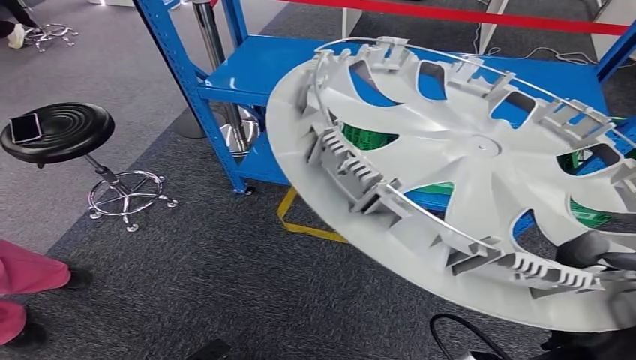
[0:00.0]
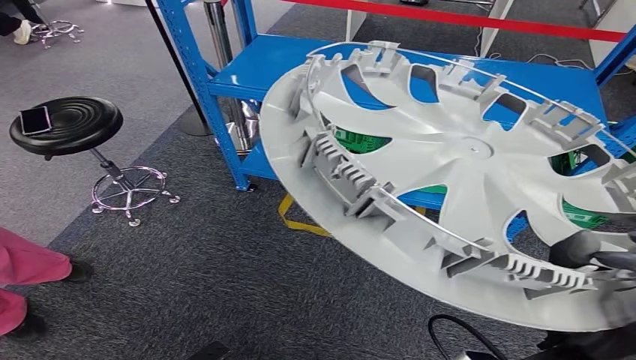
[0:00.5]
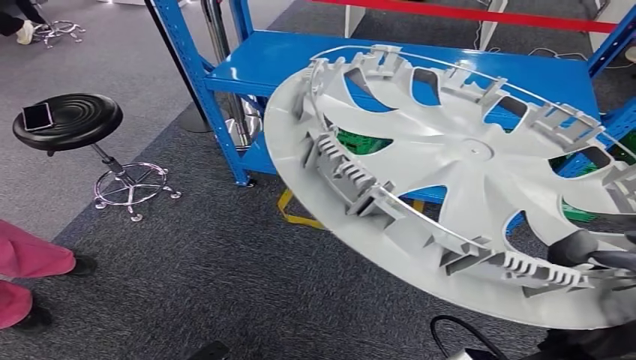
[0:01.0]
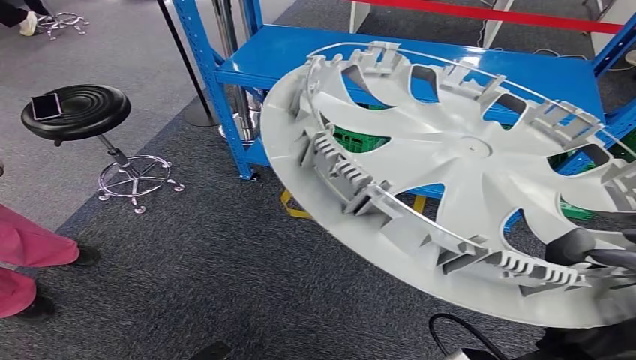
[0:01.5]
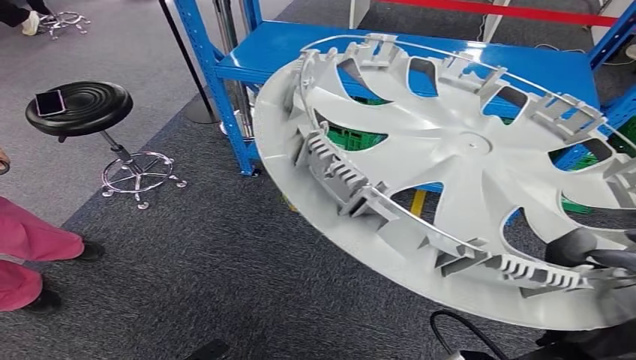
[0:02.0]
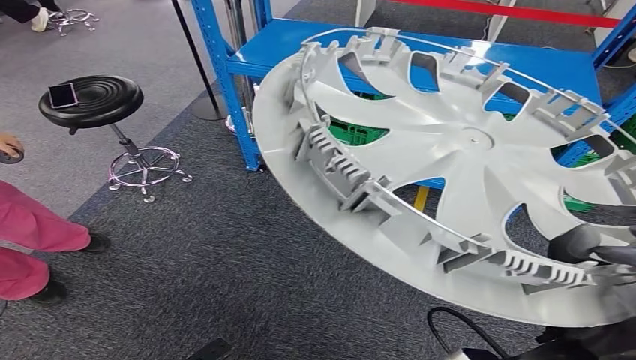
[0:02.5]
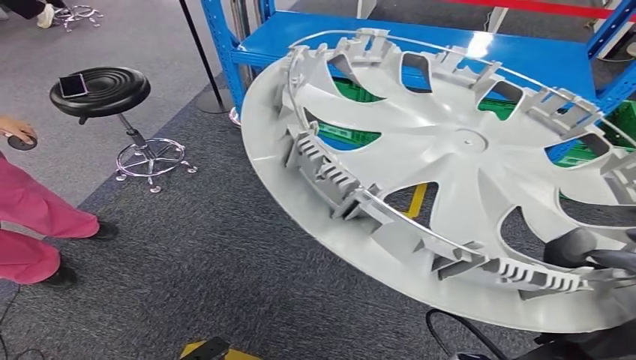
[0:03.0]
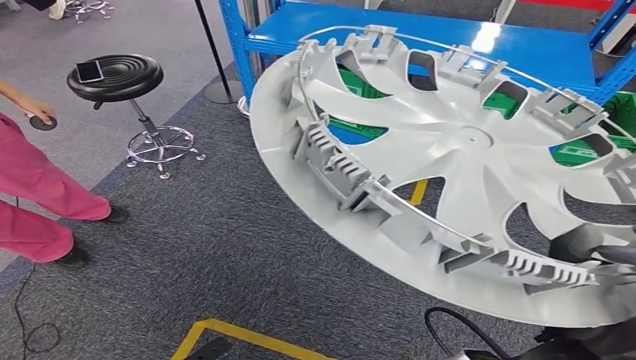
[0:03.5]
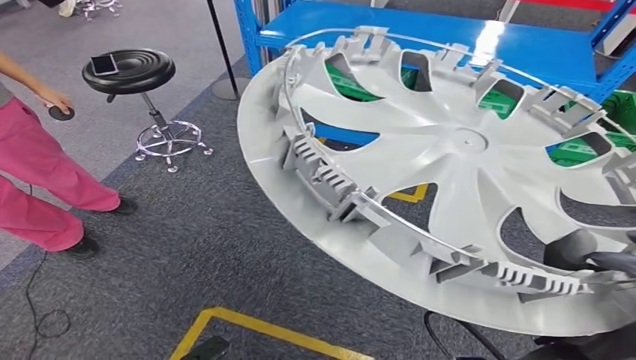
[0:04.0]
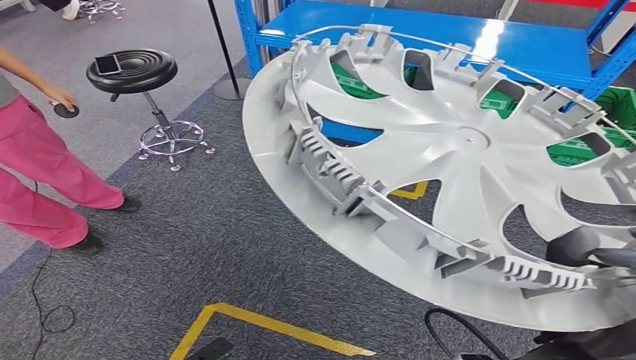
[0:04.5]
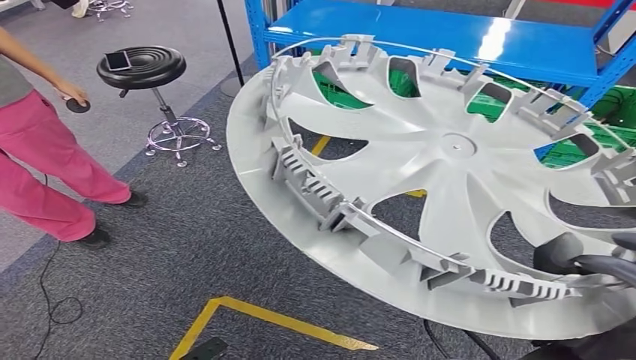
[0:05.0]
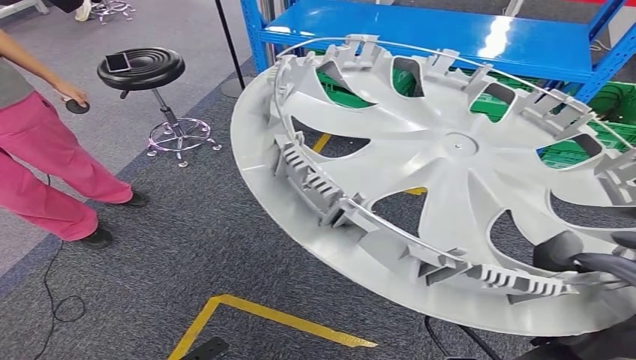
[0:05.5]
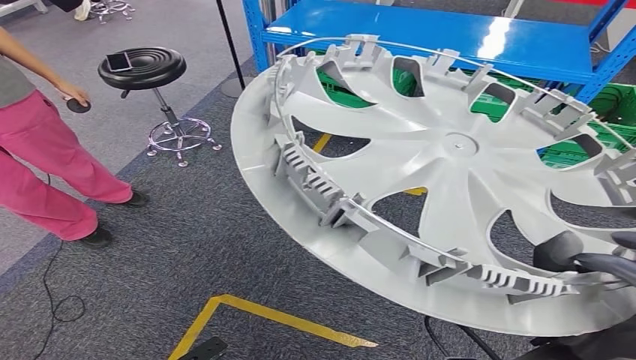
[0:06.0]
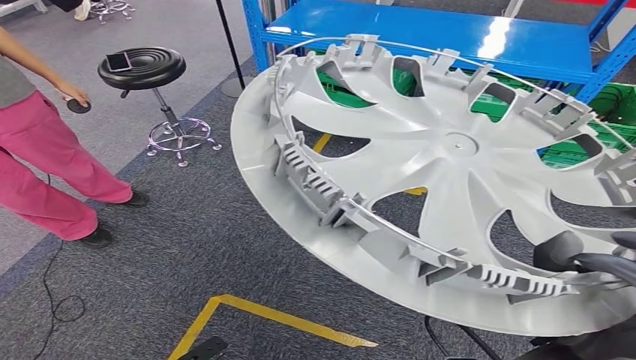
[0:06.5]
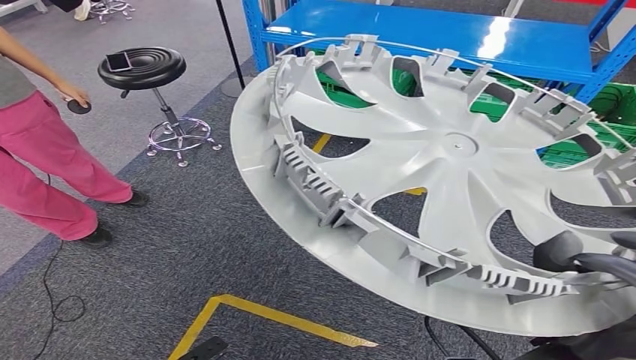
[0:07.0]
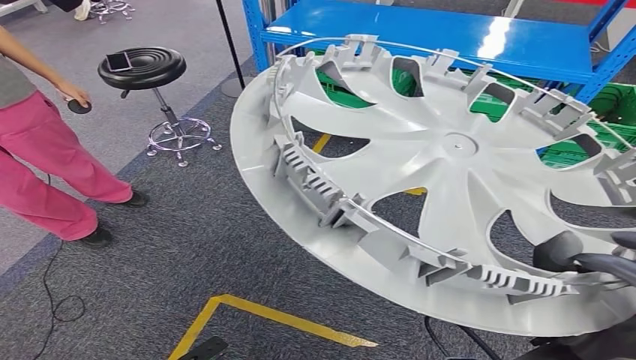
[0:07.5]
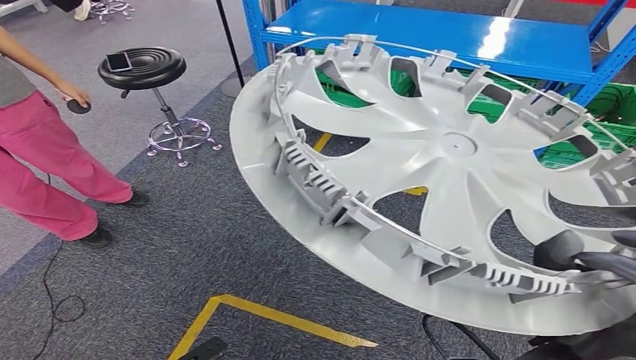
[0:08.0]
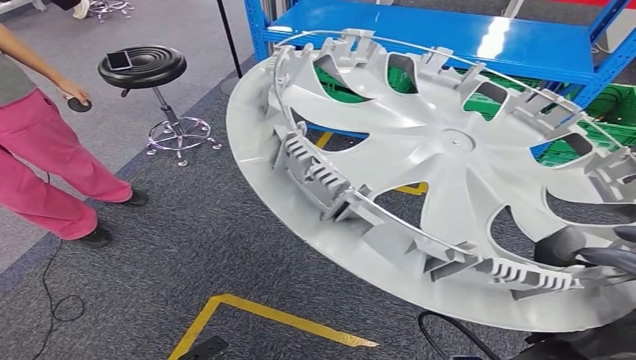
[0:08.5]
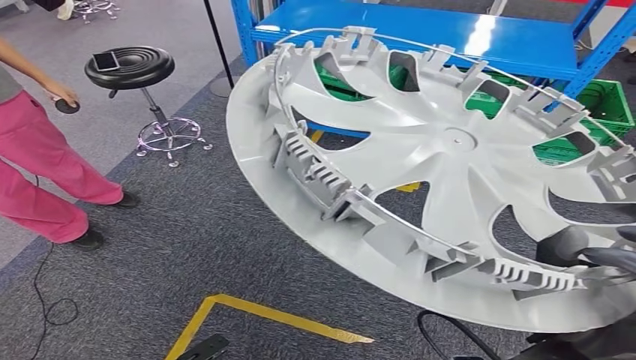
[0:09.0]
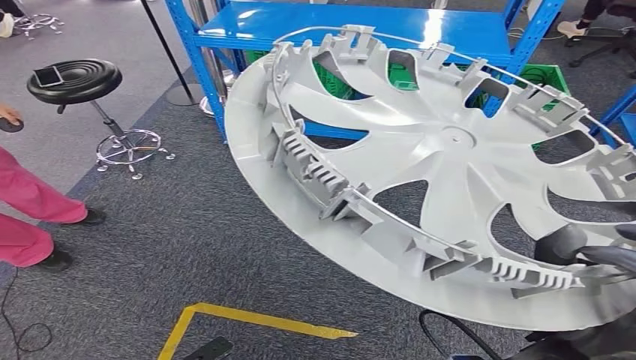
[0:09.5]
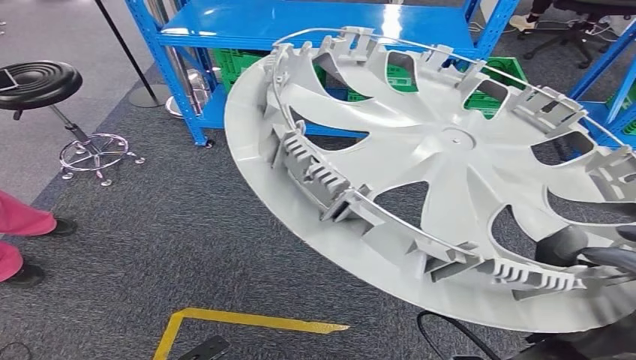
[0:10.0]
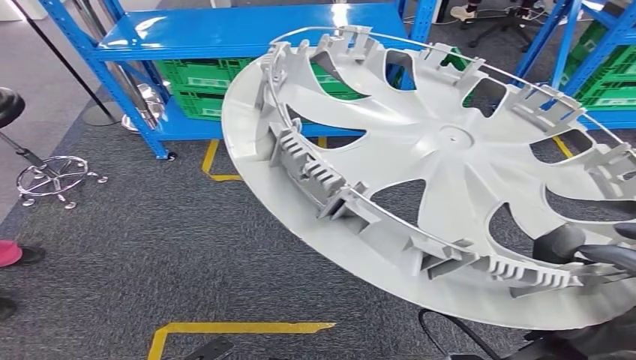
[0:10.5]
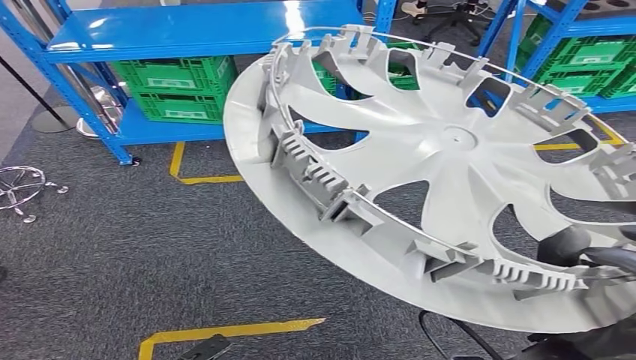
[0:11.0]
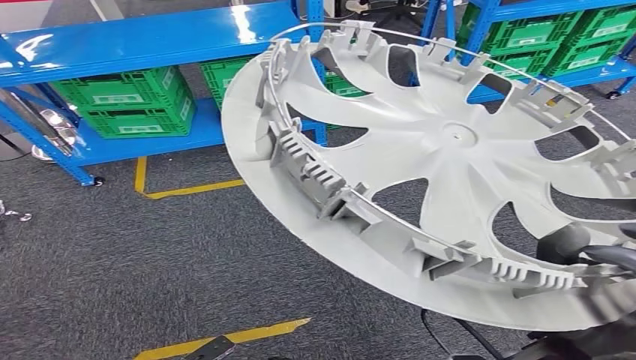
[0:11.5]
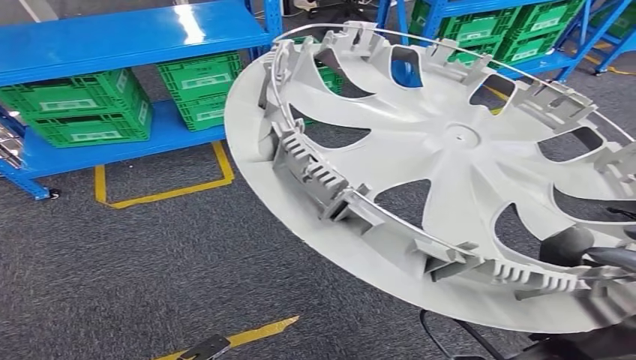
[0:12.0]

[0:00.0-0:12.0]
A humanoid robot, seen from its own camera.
0:06.0 to 0:08.0: Both hands stay about where they are.

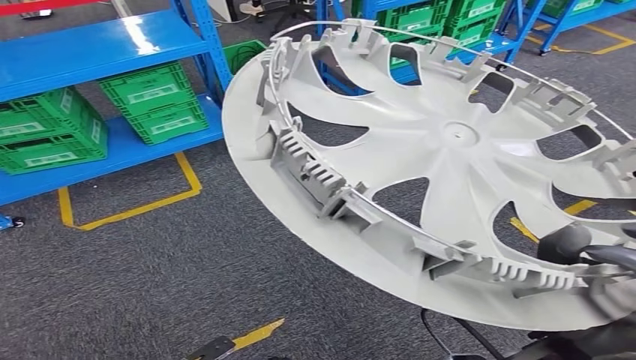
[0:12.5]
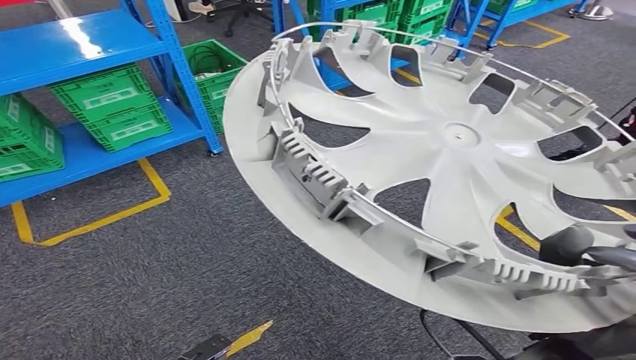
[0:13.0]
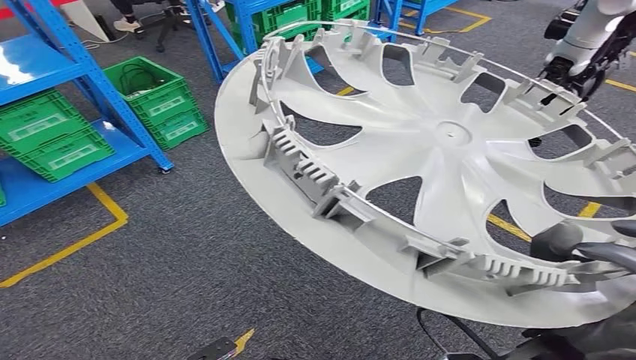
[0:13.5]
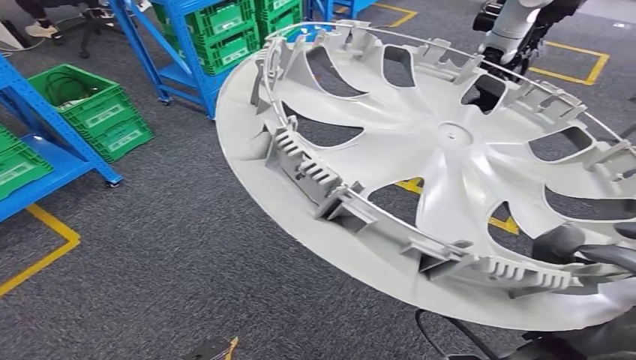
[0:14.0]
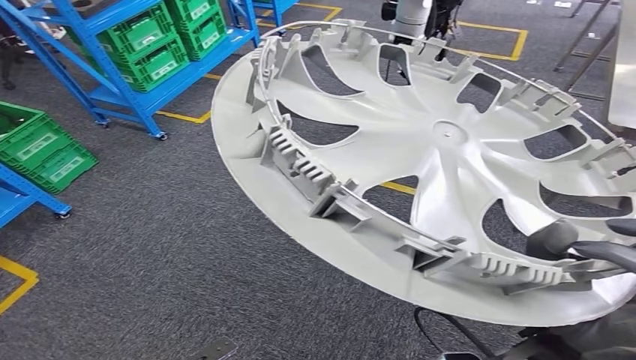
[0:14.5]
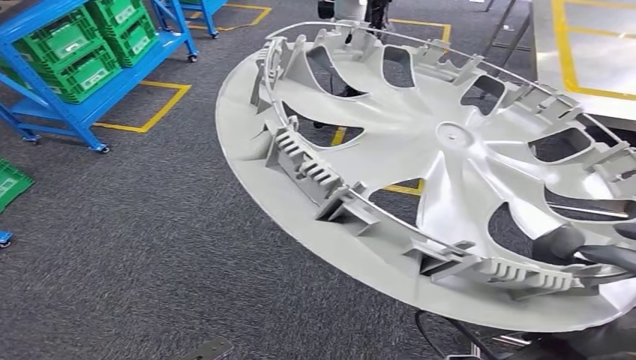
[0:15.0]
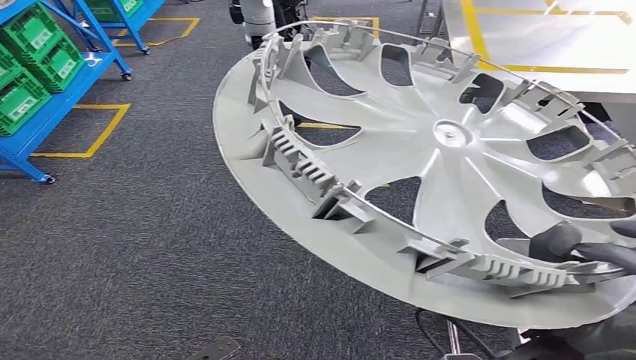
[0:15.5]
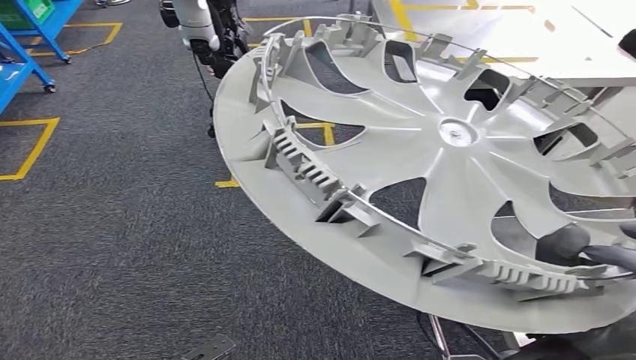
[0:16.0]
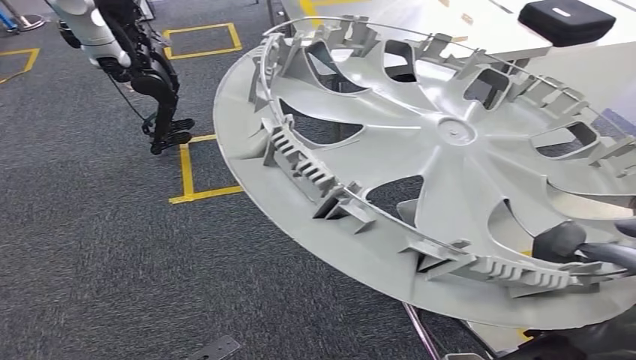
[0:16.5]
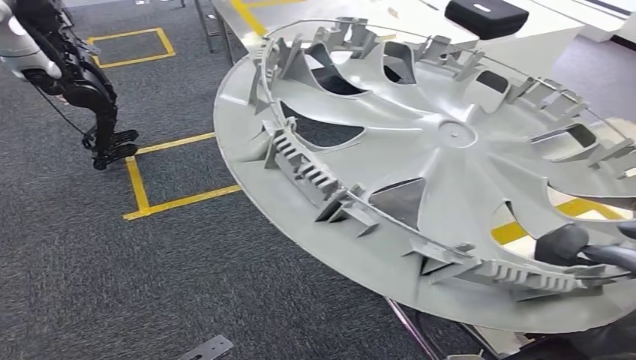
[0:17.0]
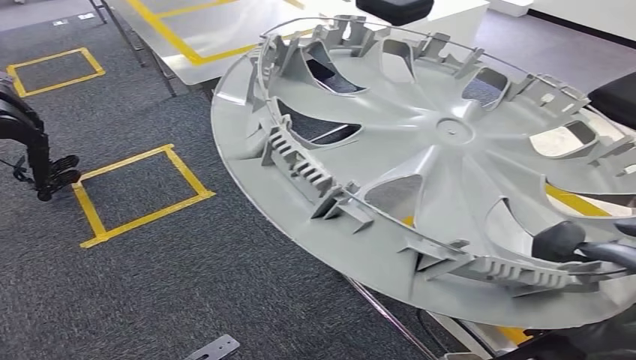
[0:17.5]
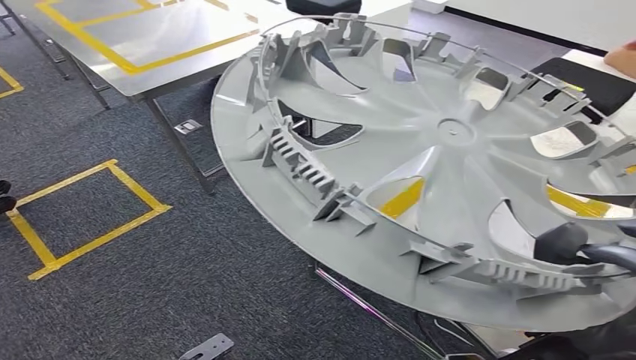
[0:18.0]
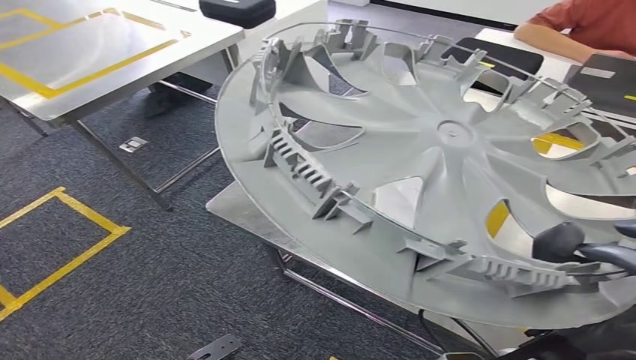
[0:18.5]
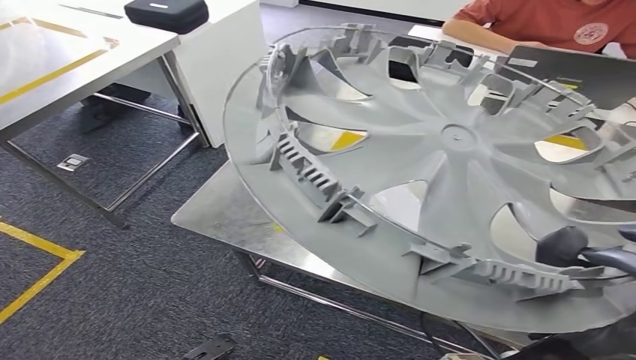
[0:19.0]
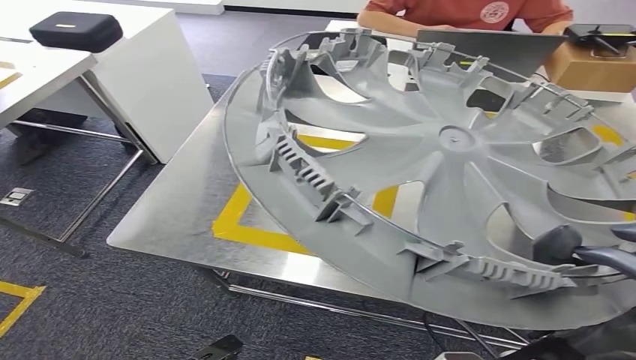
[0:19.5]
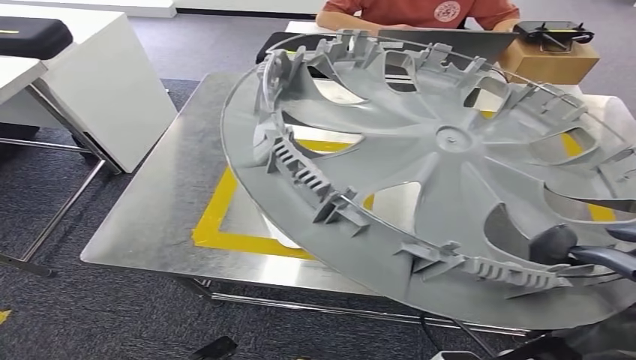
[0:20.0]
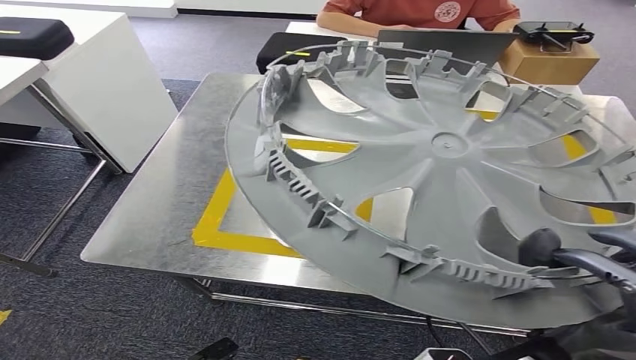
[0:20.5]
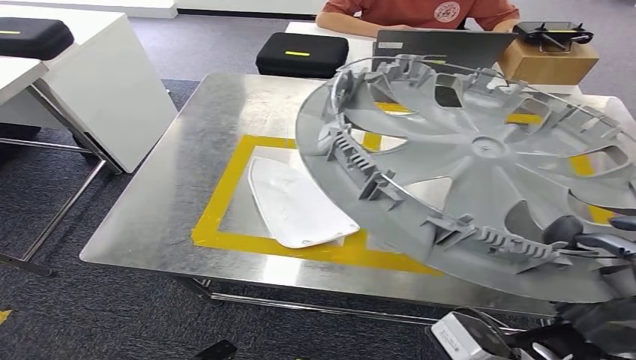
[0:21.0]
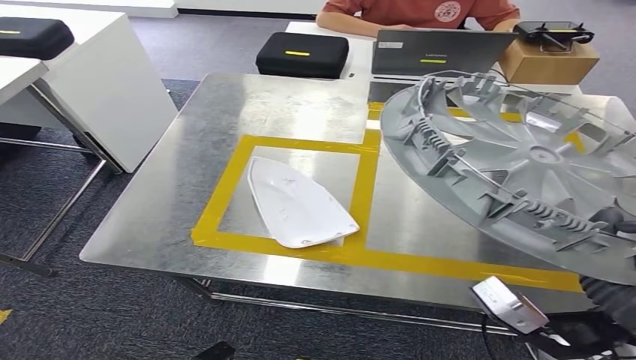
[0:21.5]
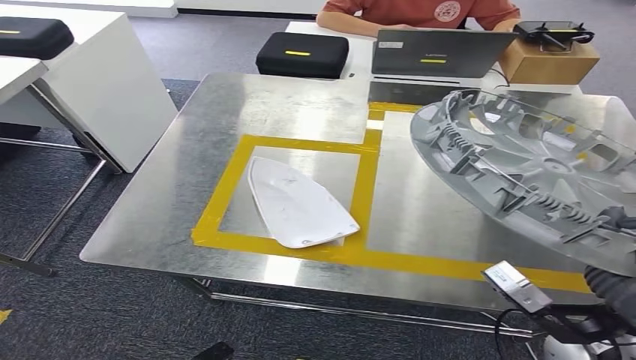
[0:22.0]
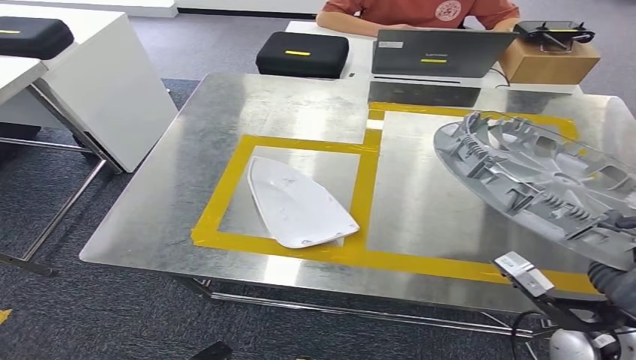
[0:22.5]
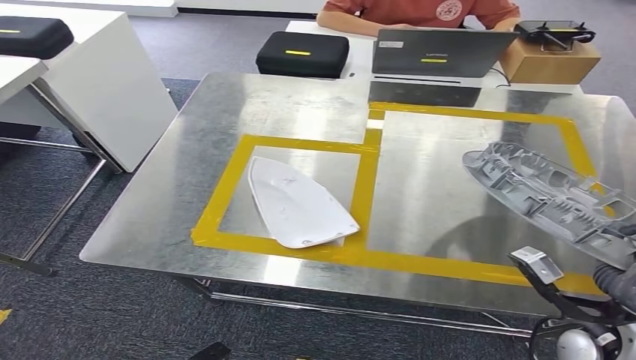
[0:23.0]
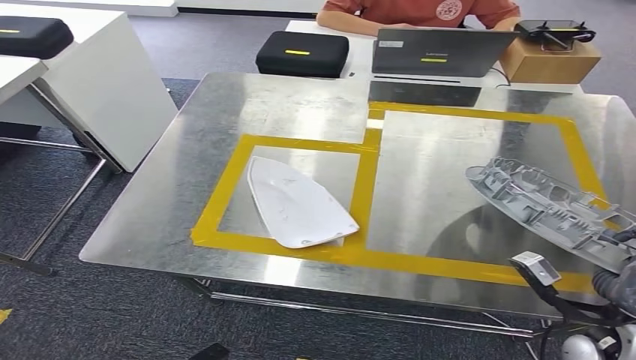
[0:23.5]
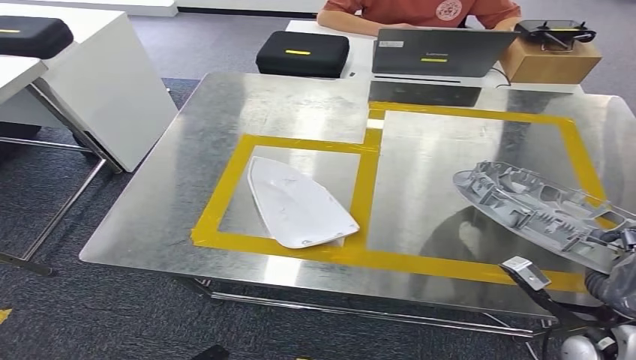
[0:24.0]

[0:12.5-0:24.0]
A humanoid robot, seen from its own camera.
Step, 0:12.5 to 0:19.5: Move the small component to the workbench.
0:22.0 to 0:24.0: The right hand goes approximately 10 cm downward and to the right.
